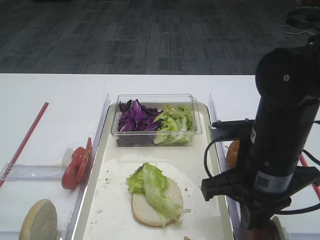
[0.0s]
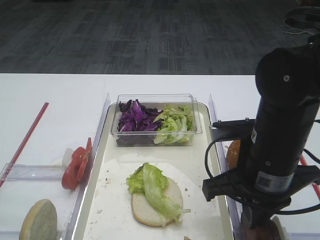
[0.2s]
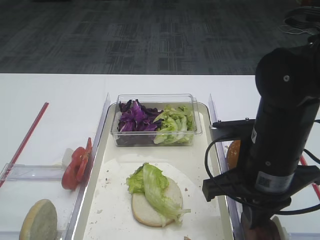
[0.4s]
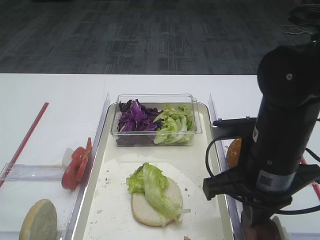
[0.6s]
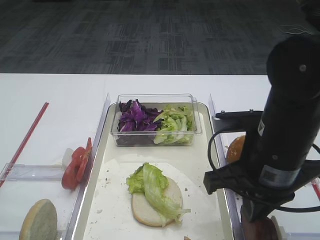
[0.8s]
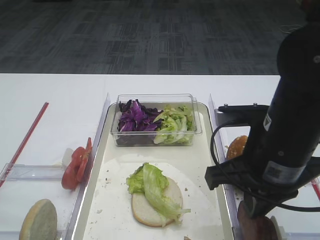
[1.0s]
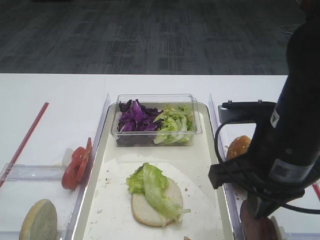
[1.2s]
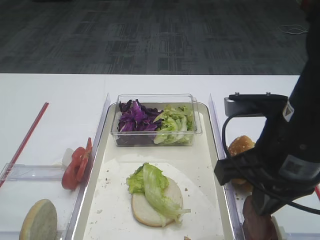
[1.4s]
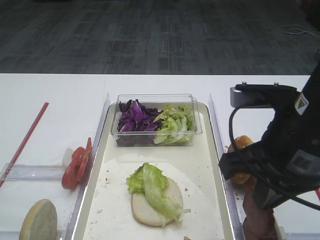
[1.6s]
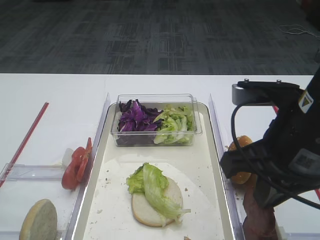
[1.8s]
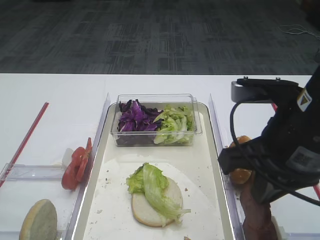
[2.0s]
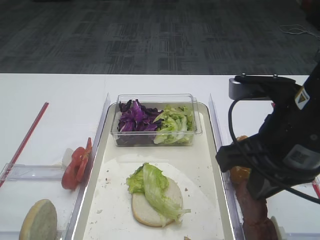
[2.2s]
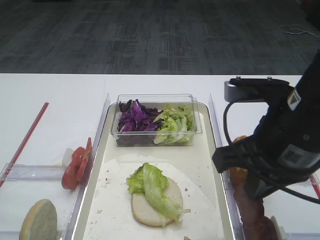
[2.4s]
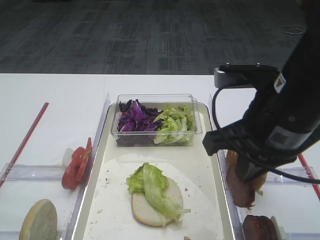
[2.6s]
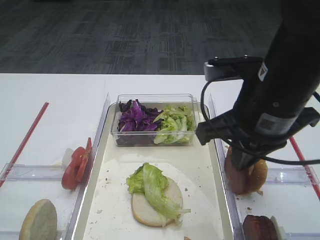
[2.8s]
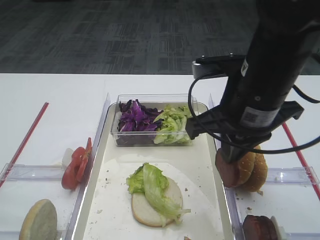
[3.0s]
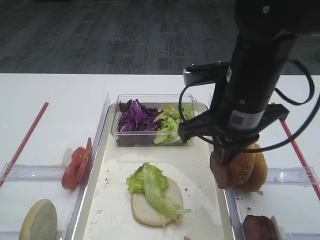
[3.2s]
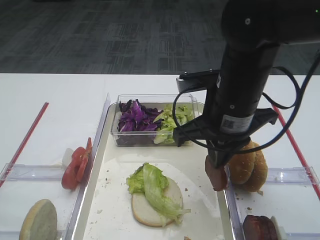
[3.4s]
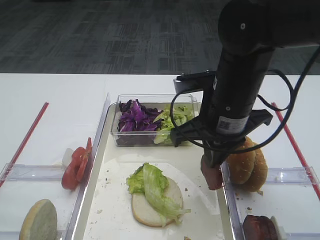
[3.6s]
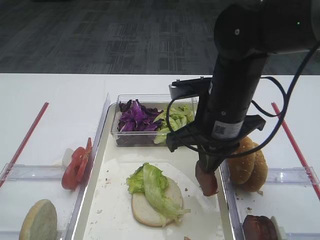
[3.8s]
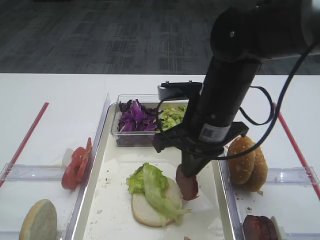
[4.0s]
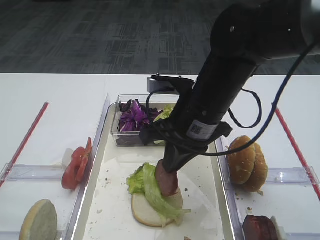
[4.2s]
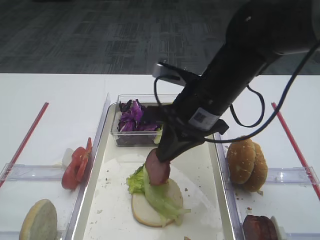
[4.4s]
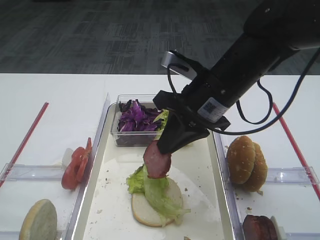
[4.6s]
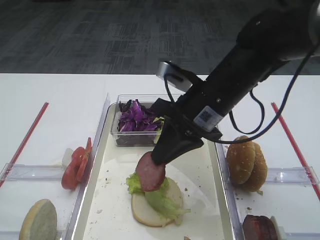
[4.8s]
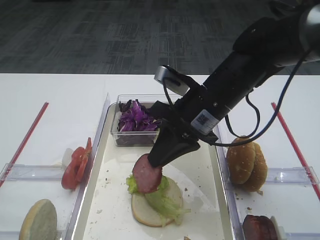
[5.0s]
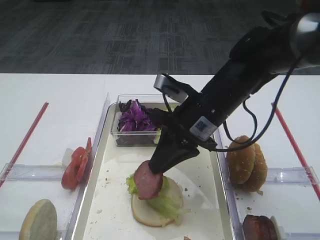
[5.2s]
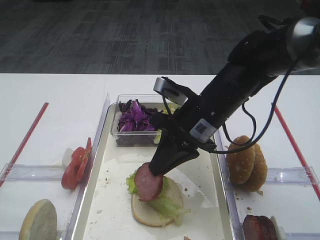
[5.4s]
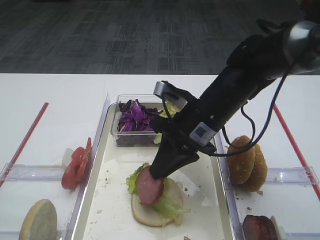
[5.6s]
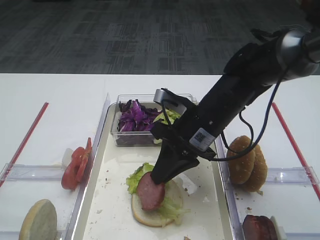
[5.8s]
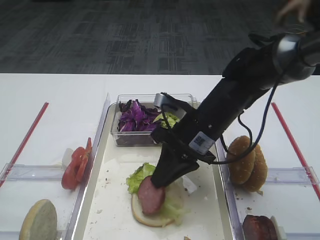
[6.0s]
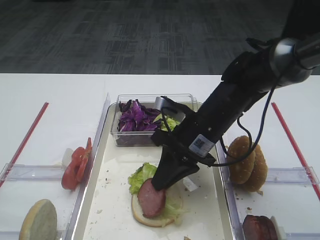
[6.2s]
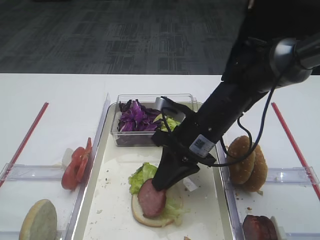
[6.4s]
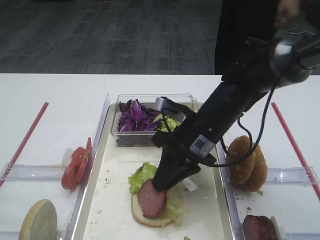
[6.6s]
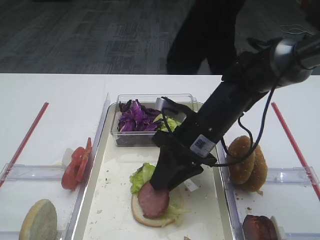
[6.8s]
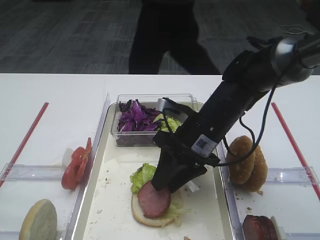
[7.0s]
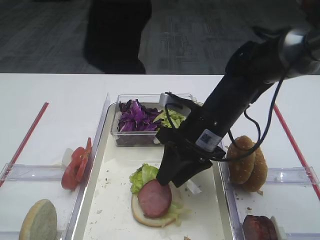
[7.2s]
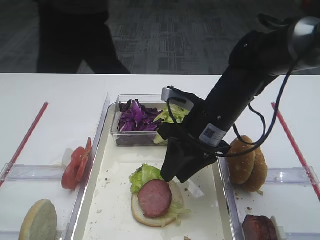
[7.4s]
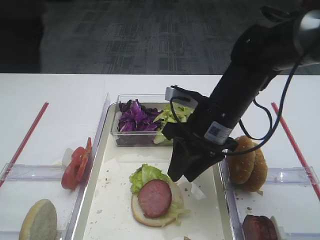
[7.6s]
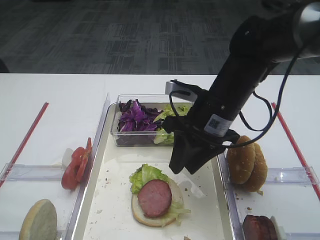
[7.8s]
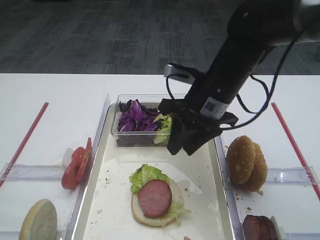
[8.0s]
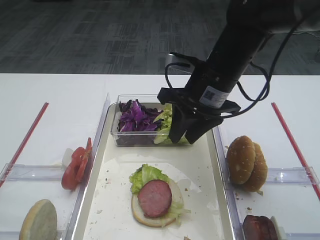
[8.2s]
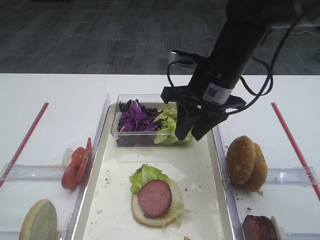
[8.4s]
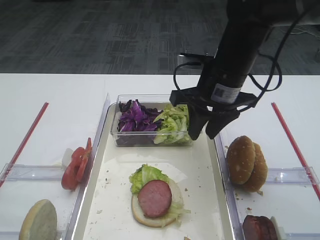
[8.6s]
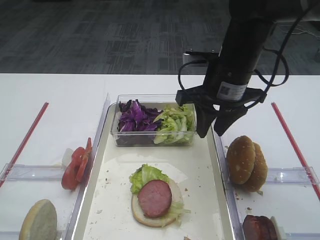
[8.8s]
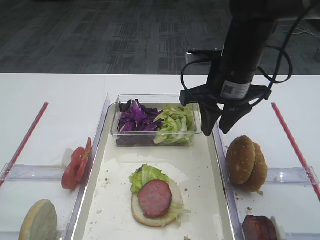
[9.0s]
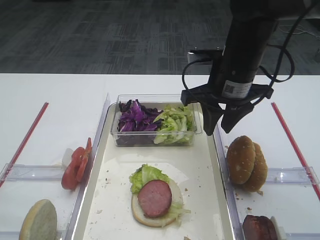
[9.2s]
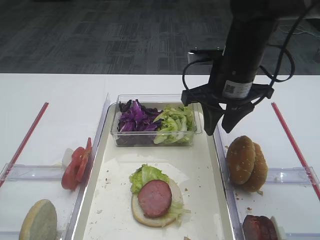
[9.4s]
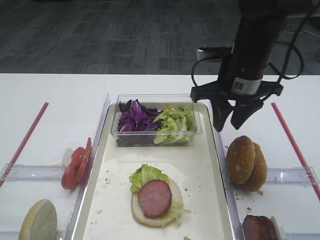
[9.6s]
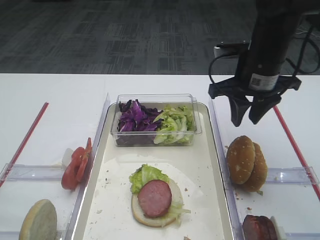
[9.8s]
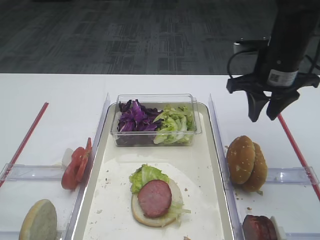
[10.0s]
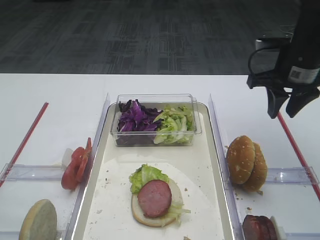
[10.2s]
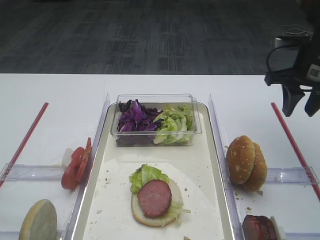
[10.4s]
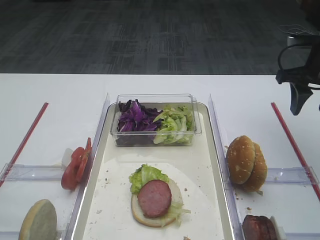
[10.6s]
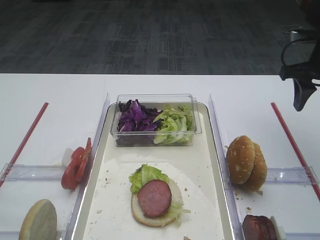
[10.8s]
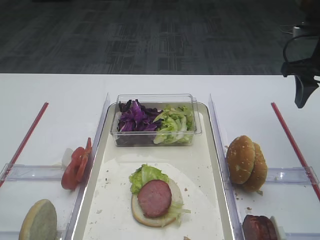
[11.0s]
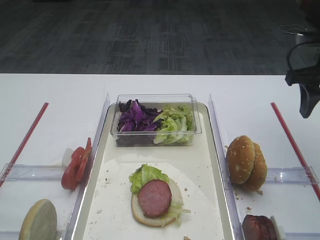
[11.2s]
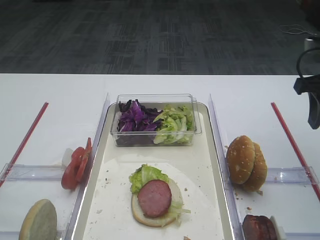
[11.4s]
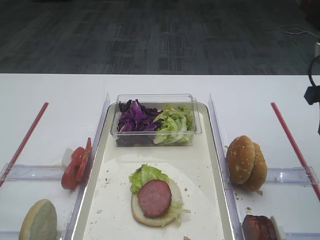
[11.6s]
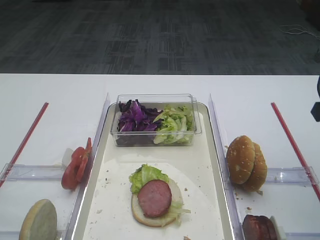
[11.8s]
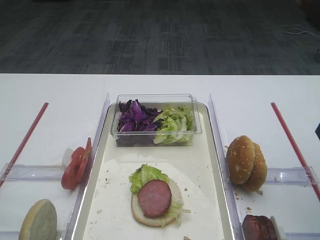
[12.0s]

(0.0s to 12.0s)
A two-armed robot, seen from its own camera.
Step, 0.0s - 2.2s: Pick up the cutlet with the right gripper.
Step, 2.6s - 7.2s: Place the cutlet on the lettuce leaf with the right gripper.
0.0s - 1.6s: The right gripper heads upward, covering roughly 5 cm.
1.6s - 3.0s: The right gripper travels forward by some 5 cm.
3.0s - 4.4s: The right gripper shifts by some 5 cm.
4.4s - 6.0s: The right gripper travels downward by about 5 cm.
6.0s - 7.6s: The right gripper opens up.
7.6s - 9.0s: The right gripper travels upward by some 5 cm.
9.0s - 10.4s: The right gripper is displaced to the right by roughly 15 cm.
10.4s - 12.0s: The right gripper travels backward by roughly 15 cm.

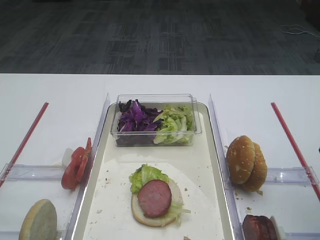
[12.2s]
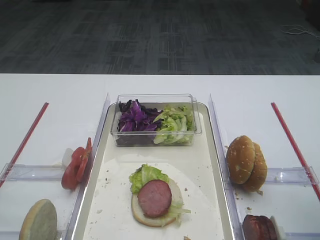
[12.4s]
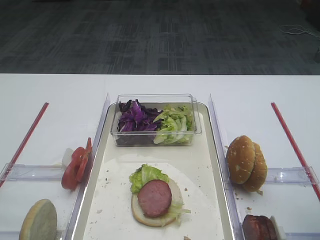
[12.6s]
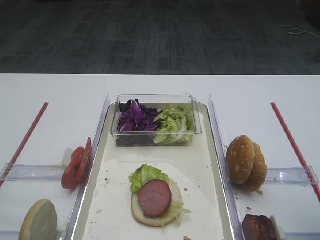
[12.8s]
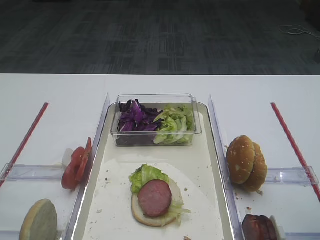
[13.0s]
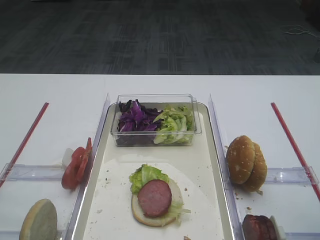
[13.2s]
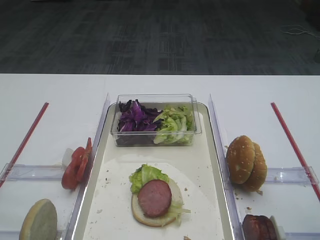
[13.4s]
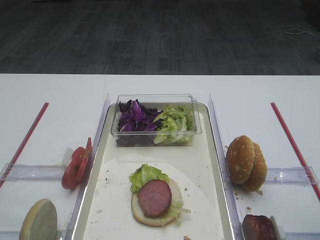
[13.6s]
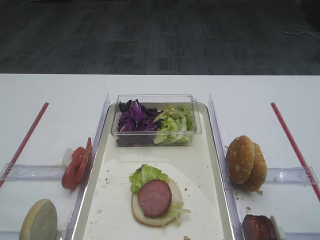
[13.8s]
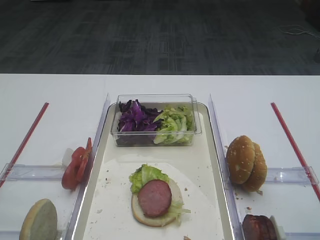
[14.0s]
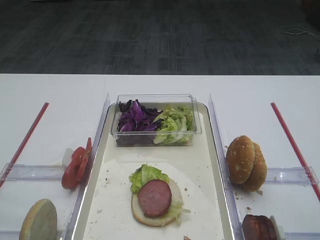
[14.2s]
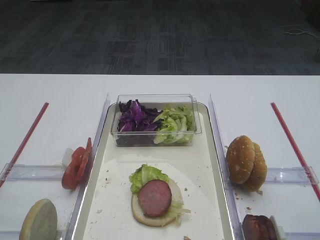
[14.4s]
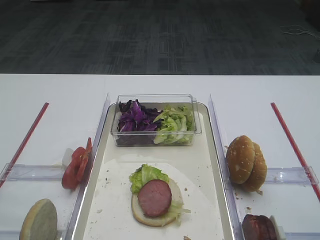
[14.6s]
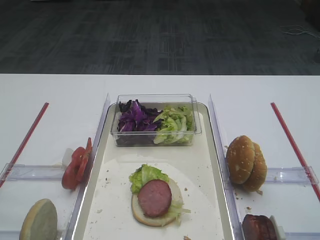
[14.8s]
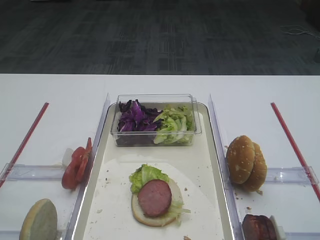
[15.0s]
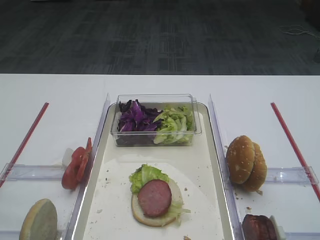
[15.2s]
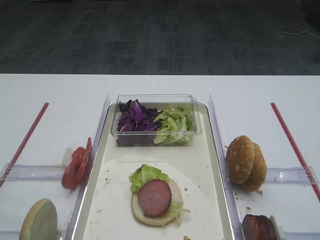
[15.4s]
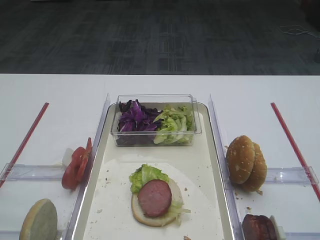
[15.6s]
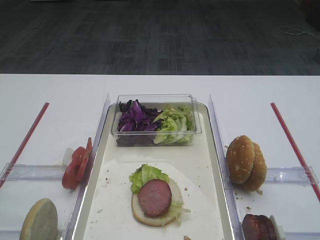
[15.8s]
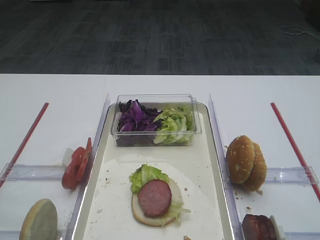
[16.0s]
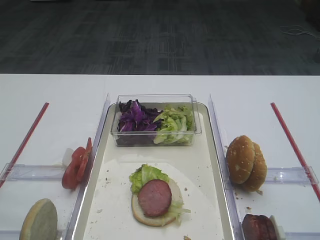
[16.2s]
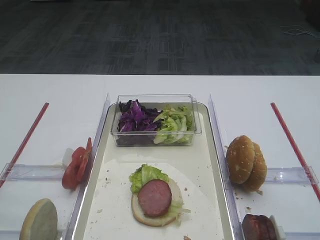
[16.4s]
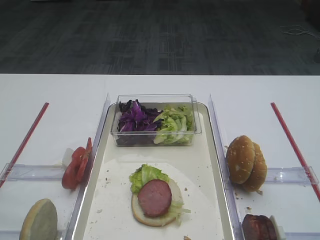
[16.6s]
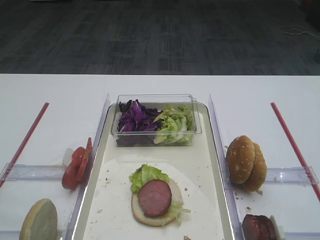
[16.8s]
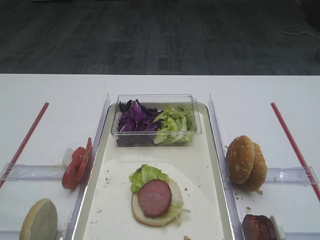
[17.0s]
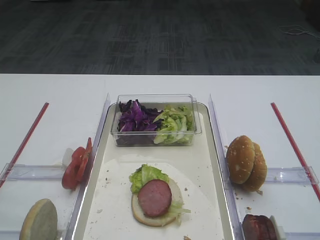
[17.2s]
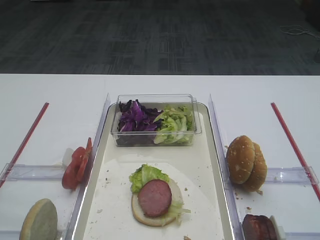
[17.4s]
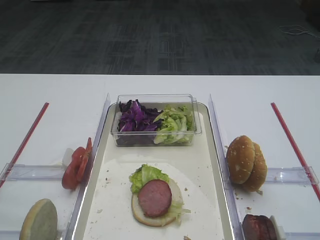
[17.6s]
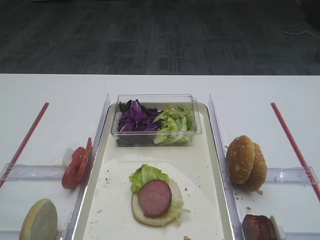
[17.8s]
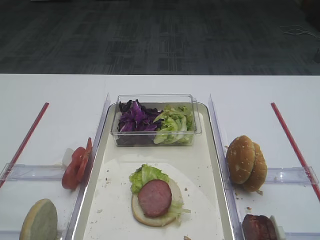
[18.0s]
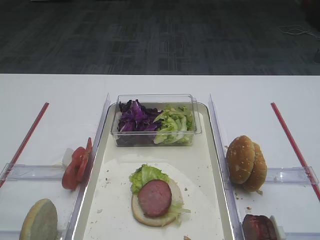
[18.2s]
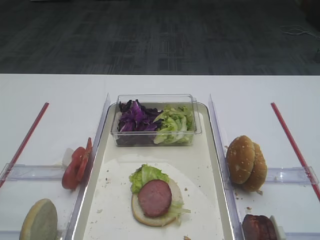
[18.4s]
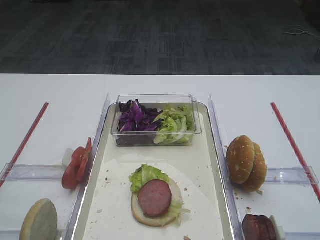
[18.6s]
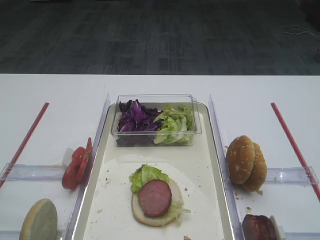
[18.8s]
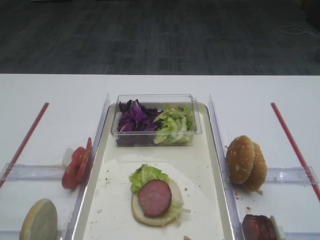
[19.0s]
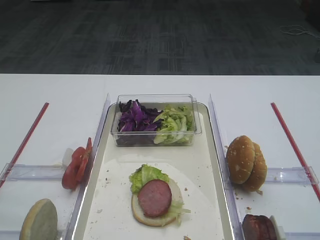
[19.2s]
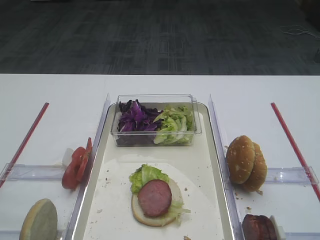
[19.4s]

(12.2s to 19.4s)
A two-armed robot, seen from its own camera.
18.0s - 19.4s: The two grippers keep their place.

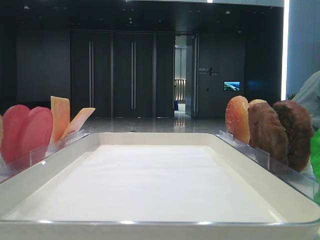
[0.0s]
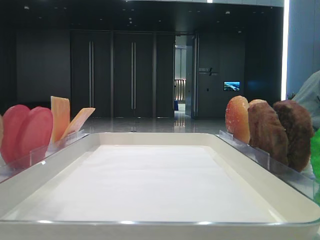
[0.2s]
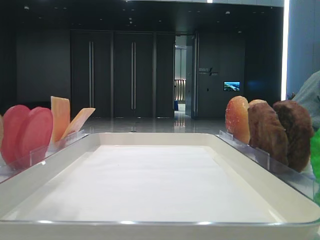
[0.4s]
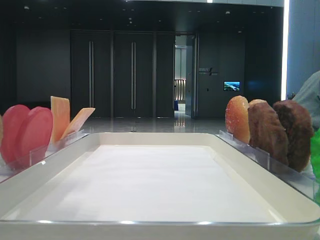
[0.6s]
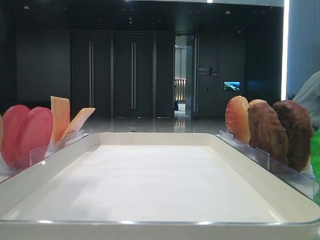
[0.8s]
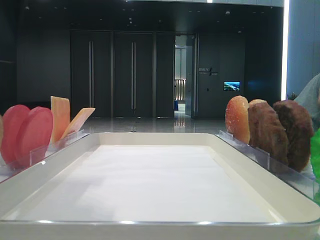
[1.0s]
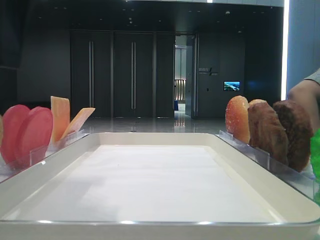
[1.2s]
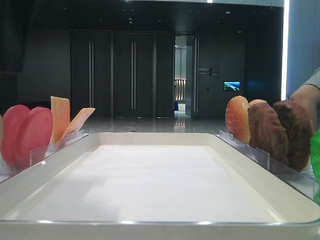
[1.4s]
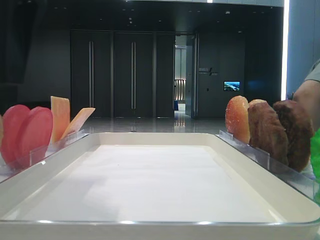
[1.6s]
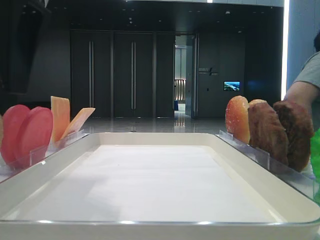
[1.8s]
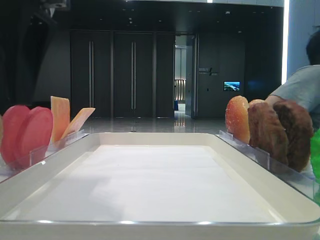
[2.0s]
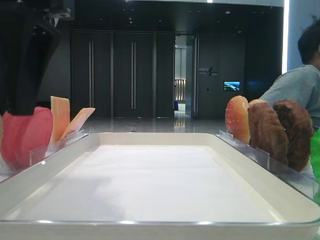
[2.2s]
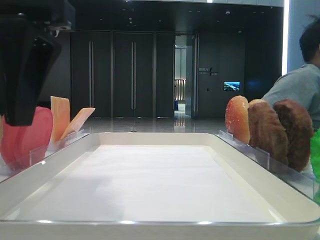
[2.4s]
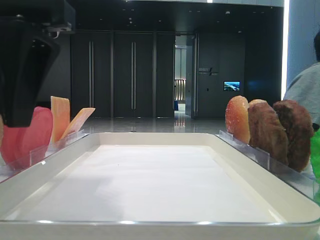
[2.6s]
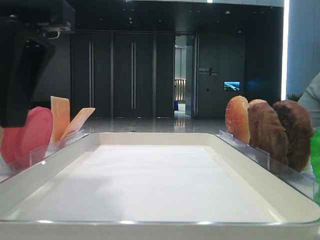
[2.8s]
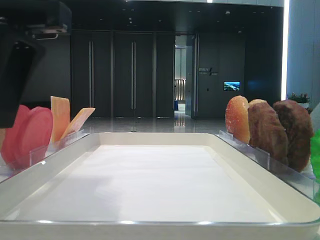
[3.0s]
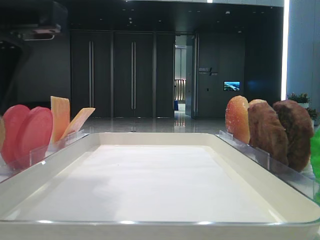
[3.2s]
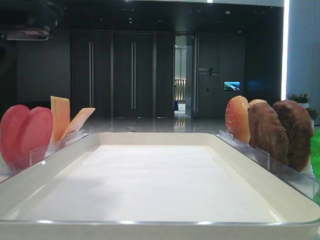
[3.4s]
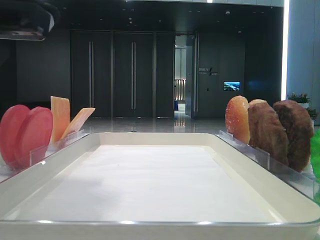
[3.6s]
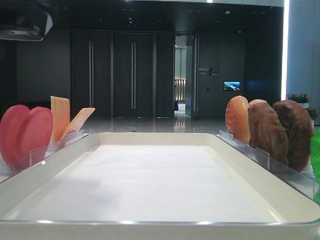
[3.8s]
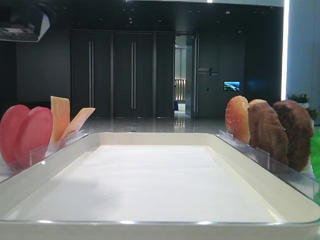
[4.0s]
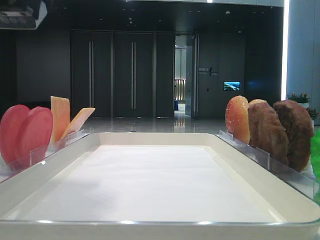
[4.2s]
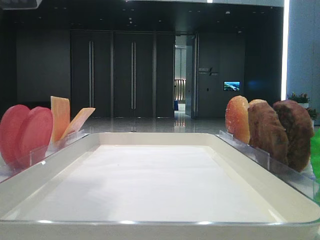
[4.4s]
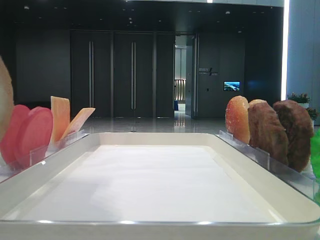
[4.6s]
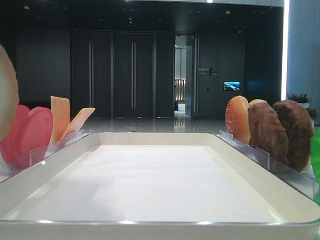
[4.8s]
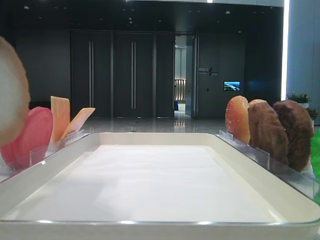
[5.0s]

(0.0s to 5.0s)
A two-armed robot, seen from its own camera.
0.0s - 1.6s: The left gripper heads to the right and downward, covering about 10 cm.
3.4s - 5.0s: The left gripper moves upward, approximately 5 cm.
